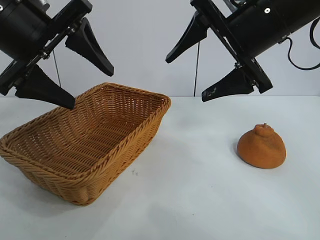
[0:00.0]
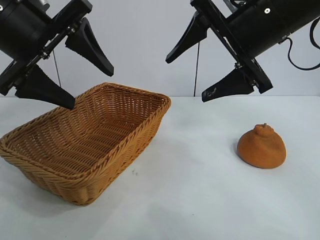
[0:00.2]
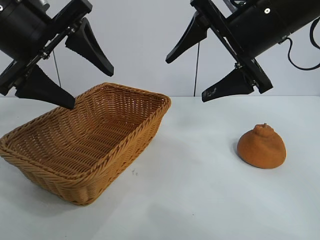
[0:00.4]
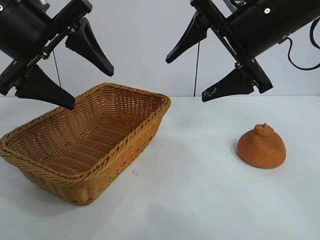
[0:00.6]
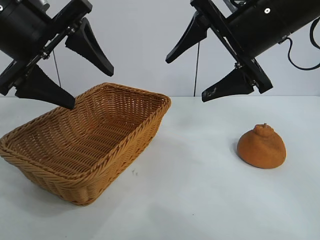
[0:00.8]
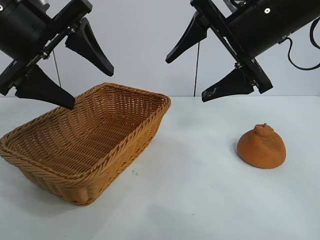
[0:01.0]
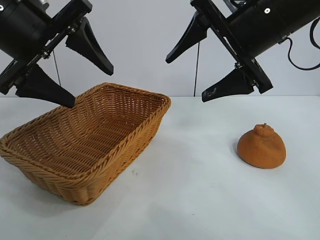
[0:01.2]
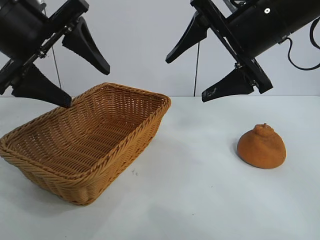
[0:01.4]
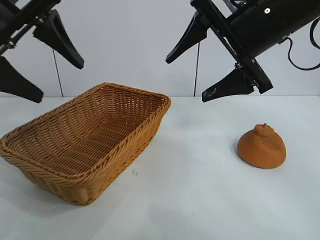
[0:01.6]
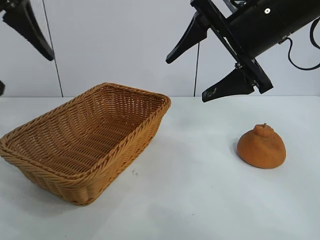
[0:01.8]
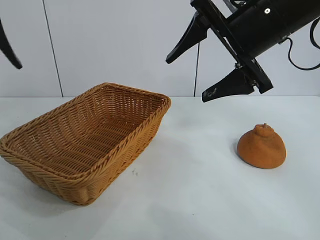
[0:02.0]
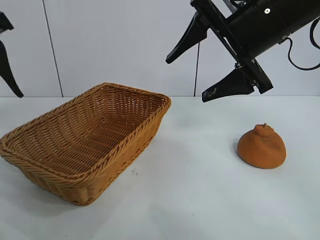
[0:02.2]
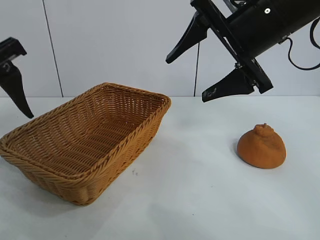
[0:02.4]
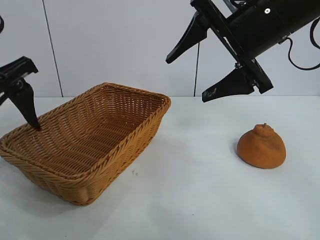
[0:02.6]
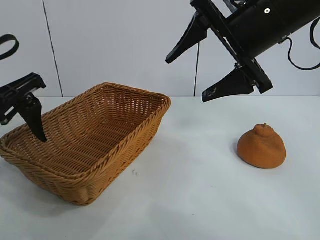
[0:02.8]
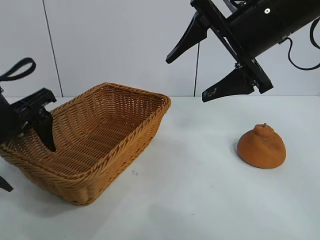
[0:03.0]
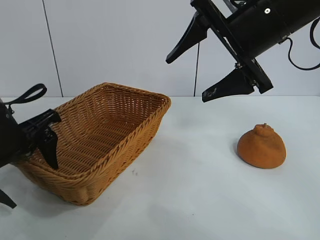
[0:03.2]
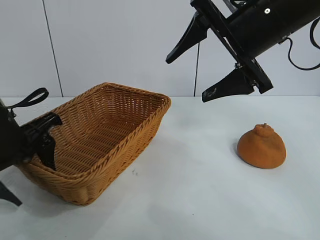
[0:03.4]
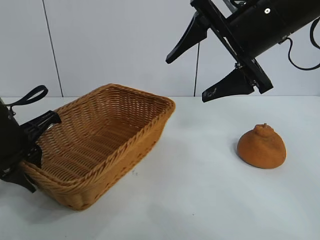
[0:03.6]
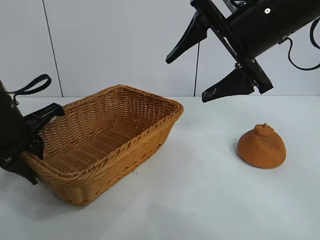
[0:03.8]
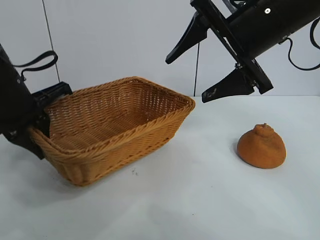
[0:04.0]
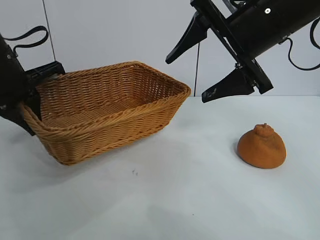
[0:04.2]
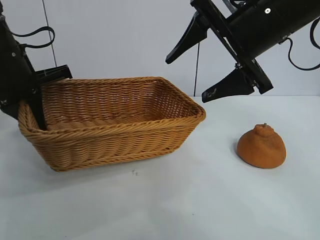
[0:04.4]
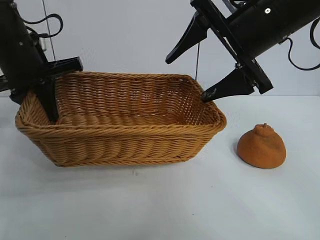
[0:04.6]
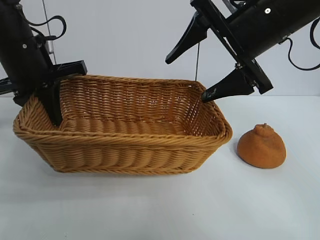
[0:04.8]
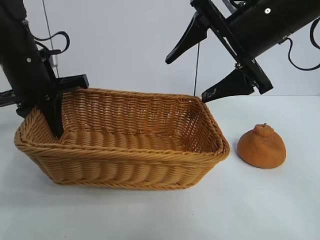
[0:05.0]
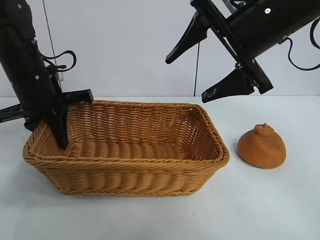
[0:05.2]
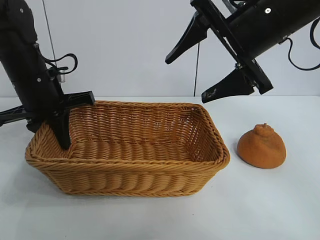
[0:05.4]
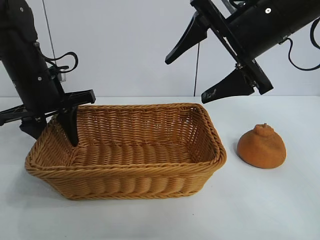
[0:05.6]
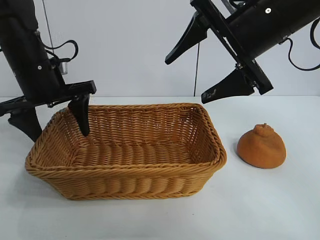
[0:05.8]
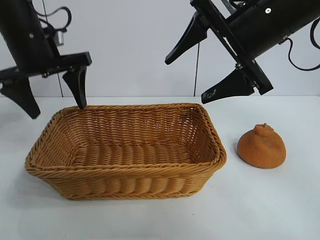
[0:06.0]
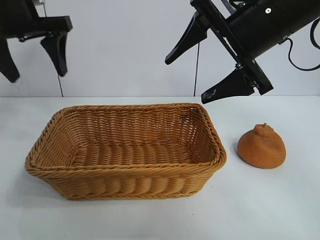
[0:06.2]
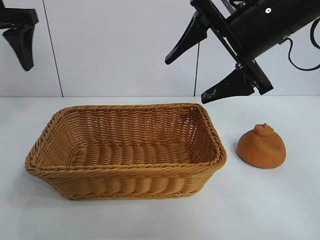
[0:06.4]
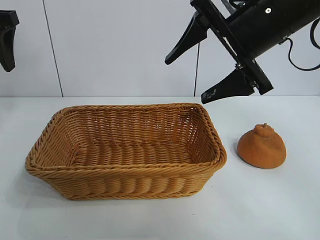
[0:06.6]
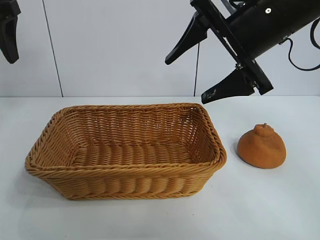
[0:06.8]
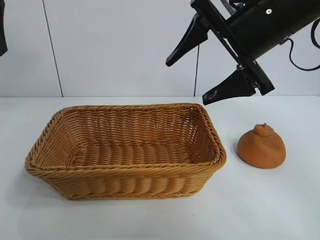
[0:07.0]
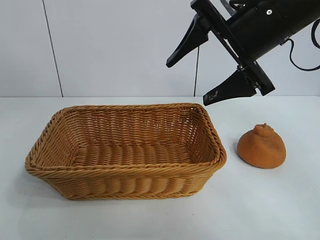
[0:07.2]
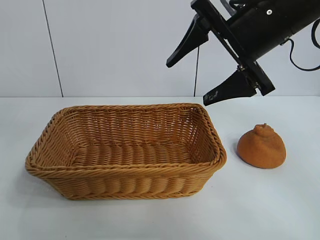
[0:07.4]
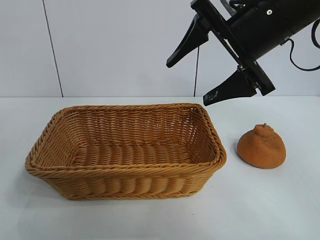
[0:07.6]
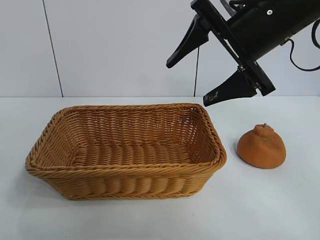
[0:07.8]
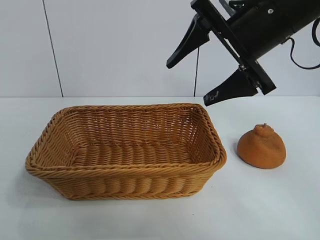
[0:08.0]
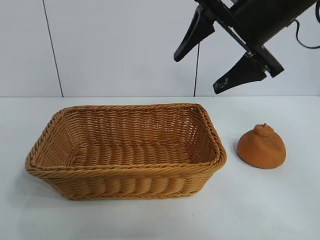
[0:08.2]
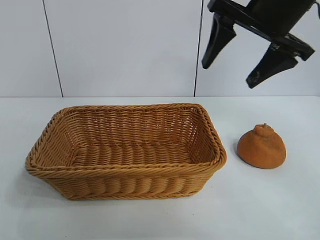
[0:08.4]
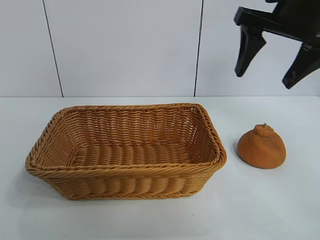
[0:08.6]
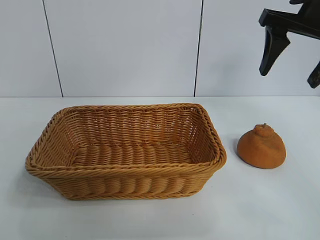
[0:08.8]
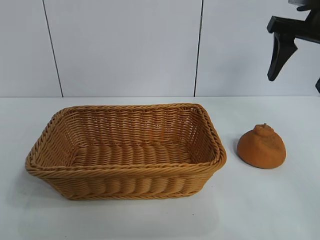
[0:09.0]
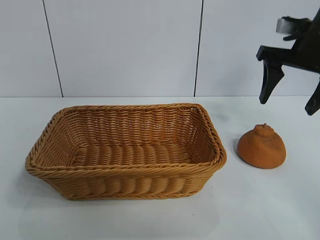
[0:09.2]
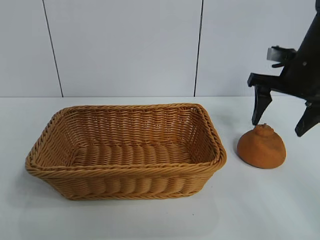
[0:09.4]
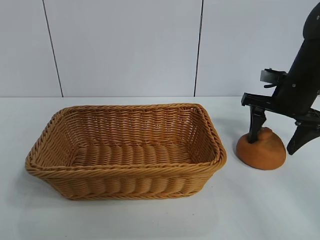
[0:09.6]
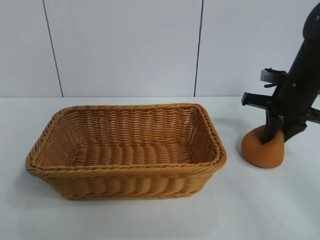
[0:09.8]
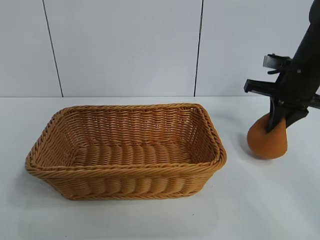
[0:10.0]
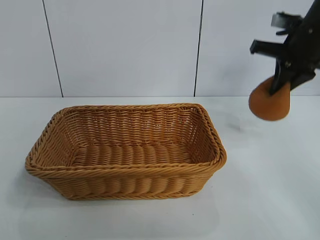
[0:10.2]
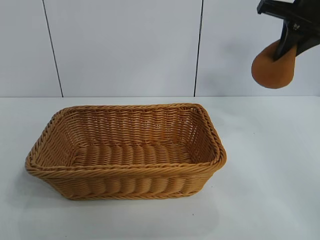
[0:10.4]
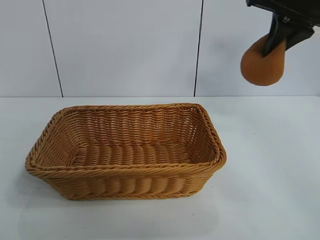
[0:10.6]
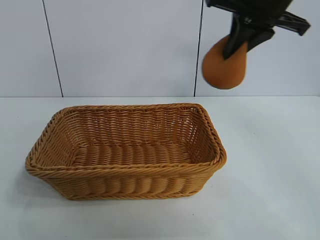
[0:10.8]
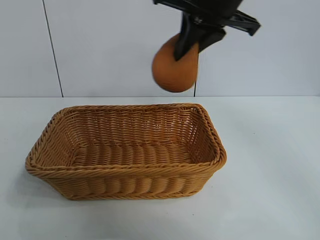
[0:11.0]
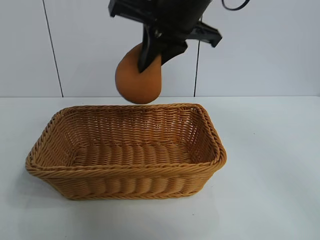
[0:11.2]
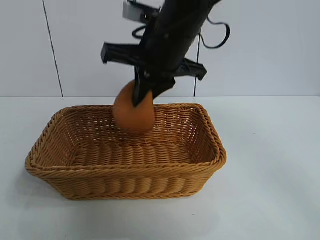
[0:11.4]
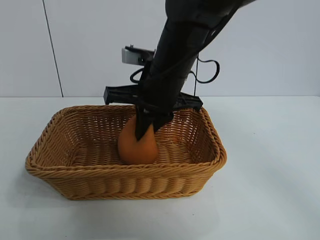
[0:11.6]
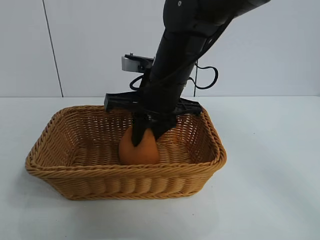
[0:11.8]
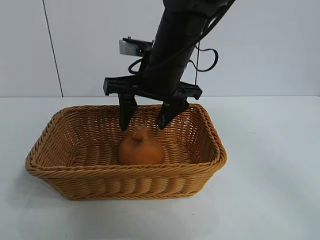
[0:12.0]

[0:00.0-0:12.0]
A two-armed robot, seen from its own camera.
Task of the whole recording: pick up the orange and put it into the basket.
Step, 0:01.0 to 0:03.6: Grasp the basket with left gripper.
Step, 0:03.8 to 0:05.6: Place the basket in the center of view with left gripper.
Step, 0:05.8 to 0:09.8: Grasp the orange with right gripper.
Step, 0:10.0 to 0:11.8: Place the orange in the basket with right gripper.
